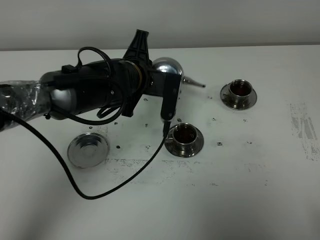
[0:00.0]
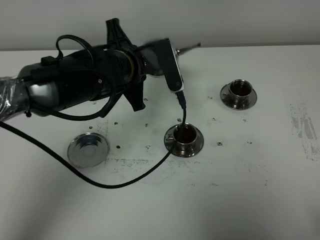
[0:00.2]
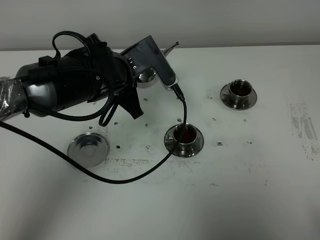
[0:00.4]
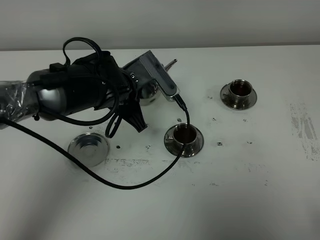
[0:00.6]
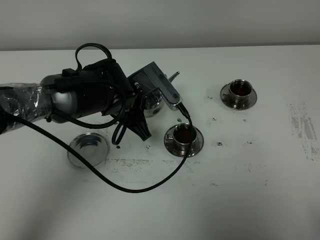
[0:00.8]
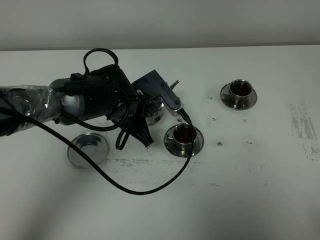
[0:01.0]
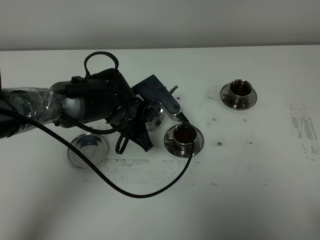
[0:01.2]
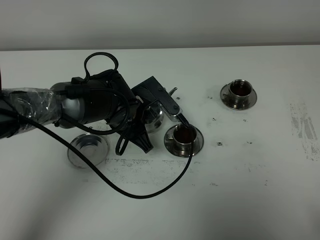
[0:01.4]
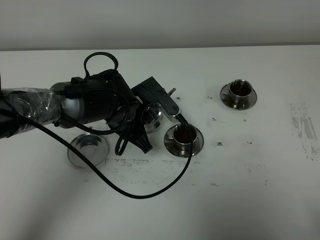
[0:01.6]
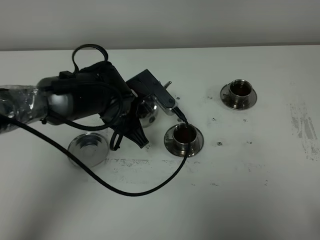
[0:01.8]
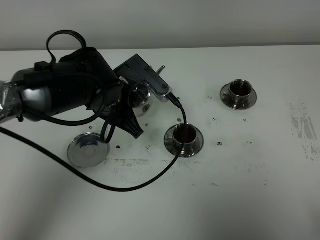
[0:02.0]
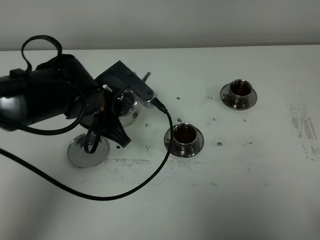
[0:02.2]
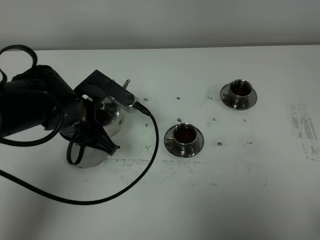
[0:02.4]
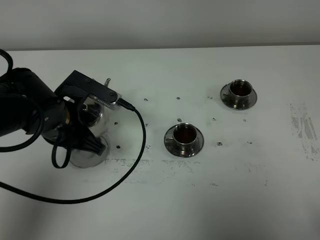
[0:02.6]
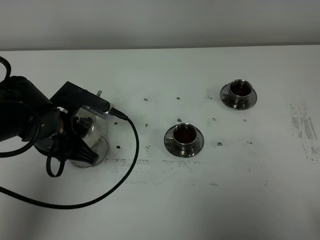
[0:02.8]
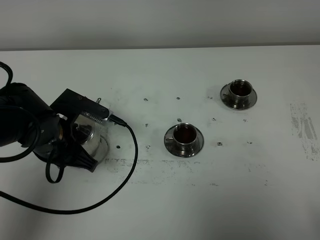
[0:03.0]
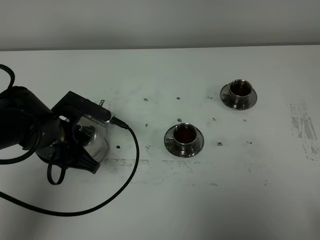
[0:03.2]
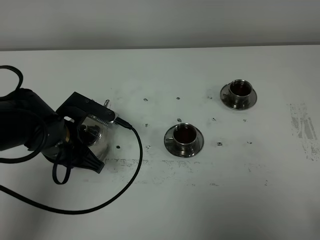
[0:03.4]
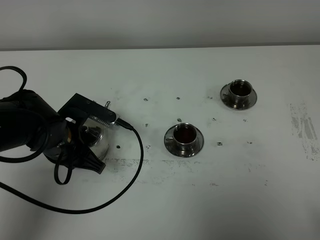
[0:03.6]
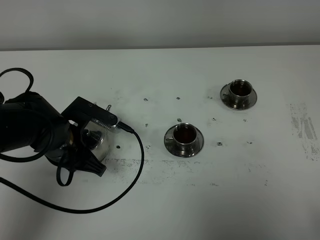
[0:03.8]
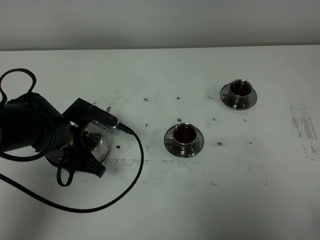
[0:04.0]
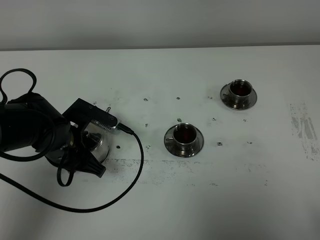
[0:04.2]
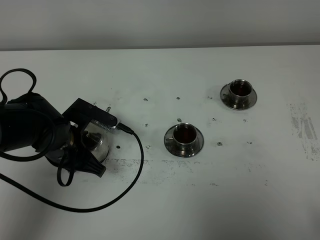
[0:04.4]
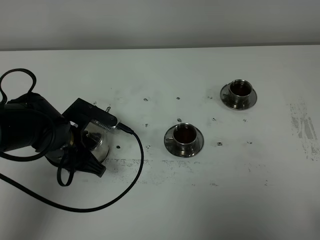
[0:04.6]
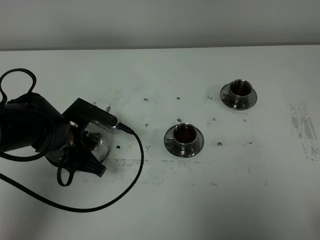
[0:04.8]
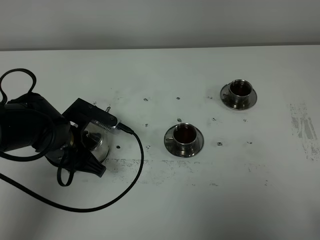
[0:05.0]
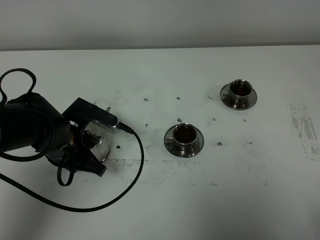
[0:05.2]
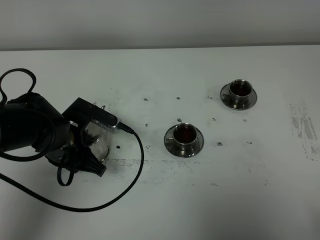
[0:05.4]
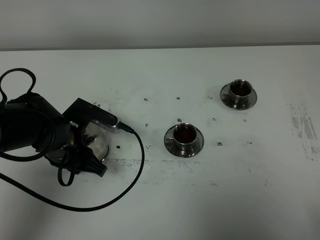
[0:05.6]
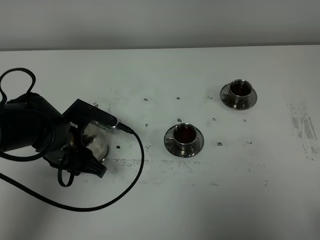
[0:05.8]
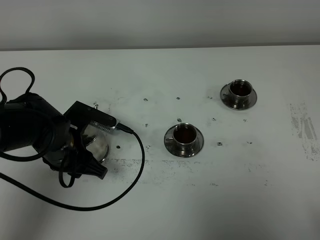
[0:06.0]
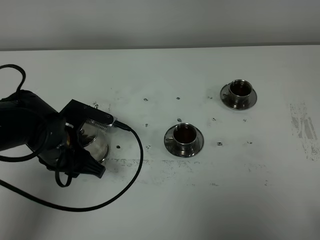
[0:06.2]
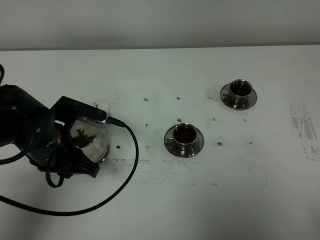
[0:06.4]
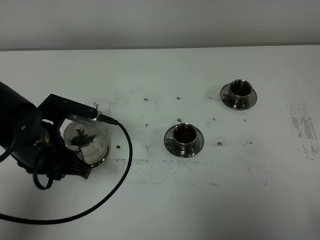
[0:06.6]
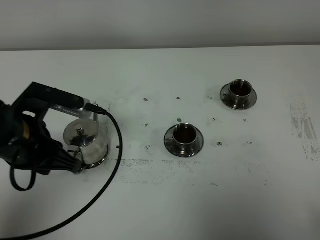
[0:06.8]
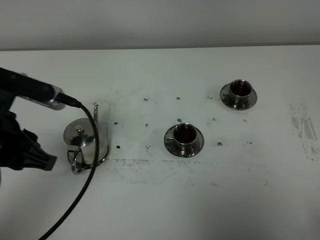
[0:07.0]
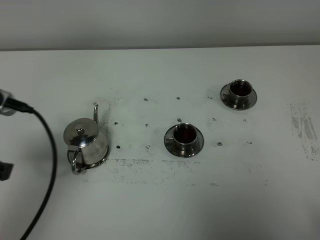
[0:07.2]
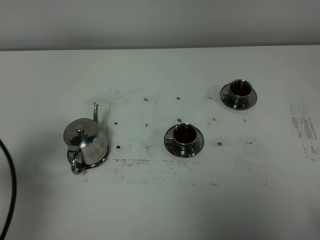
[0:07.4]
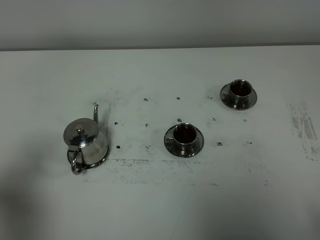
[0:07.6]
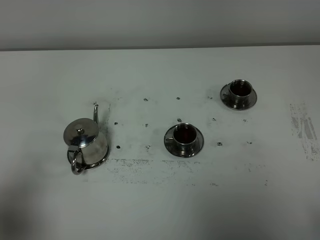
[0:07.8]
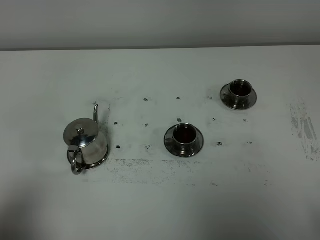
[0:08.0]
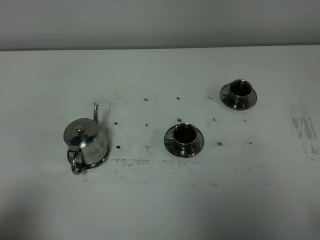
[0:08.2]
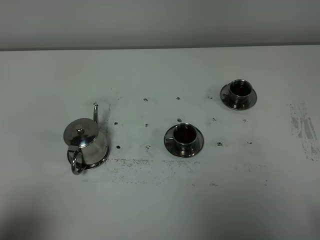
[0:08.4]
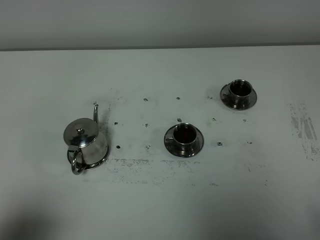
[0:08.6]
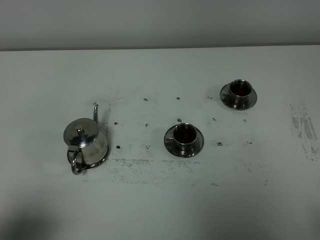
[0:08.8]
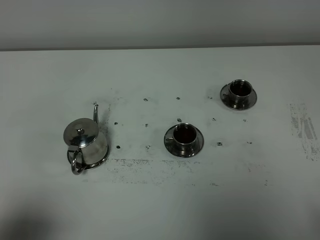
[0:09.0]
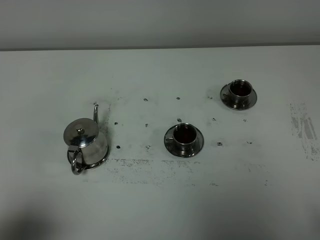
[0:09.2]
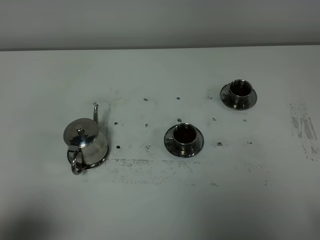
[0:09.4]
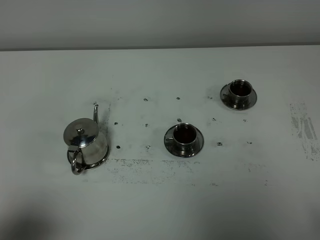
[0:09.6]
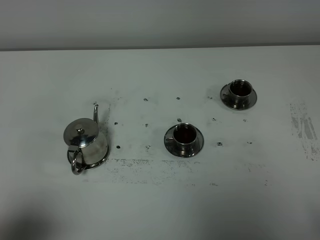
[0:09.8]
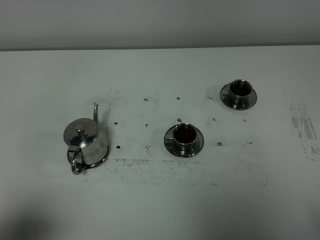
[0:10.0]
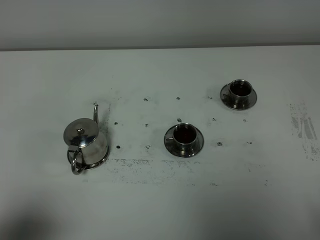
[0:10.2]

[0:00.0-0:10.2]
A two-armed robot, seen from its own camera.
Task of the whole recording: grasp the stainless steel teapot and pour the tea into the two stainless steel teacups one by one, put the stainless steel teapot back in its original place.
0:00.0 to 0:01.4: The left gripper travels downward by about 5 cm.
0:01.4 to 0:03.0: The left gripper heads to the left and backward, covering approximately 15 cm.
0:03.0 to 0:04.4: There are only small adjustments of the grippers.
0:04.4 to 0:05.8: Neither gripper changes place.
0:05.8 to 0:07.2: The left gripper goes roughly 20 cm upward, backward and to the left.
0:07.2 to 0:08.8: The left gripper travels backward by roughly 15 cm.

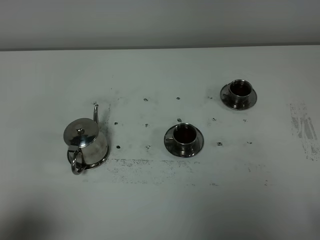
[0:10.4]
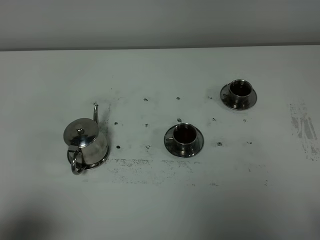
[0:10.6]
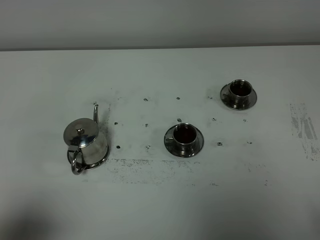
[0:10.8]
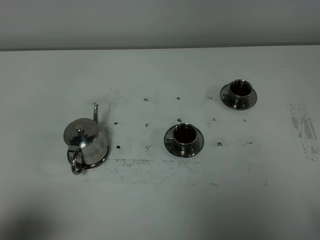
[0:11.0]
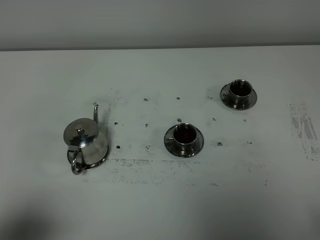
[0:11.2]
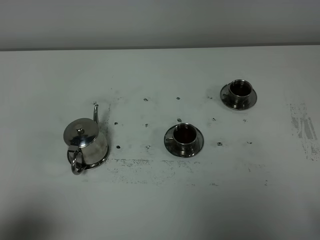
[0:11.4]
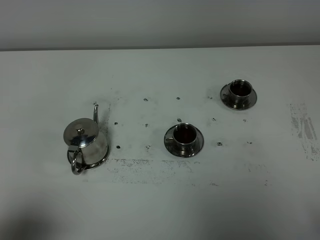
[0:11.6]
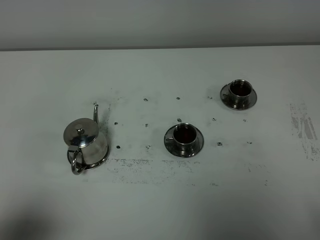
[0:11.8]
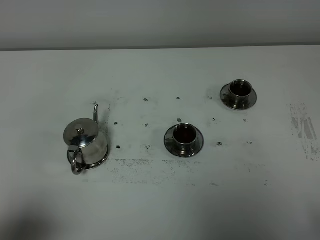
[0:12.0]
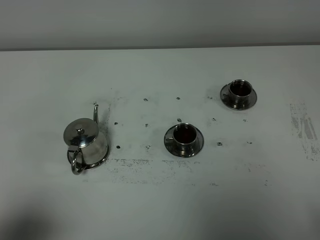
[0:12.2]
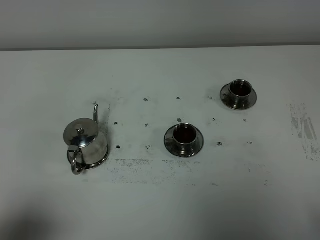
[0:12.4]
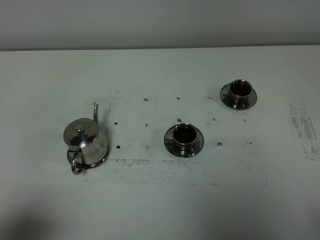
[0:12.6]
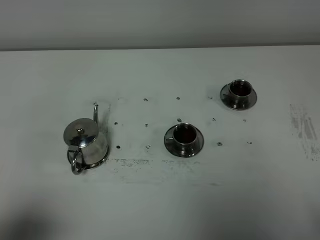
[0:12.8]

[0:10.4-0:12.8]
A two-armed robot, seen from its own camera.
Task of the whole recording: grasp the stainless steel teapot and pour the tea into the two stainless steel teacups one by one, put the stainless steel teapot back in its original place.
0:10.4 to 0:12.8: The two grippers keep their place.

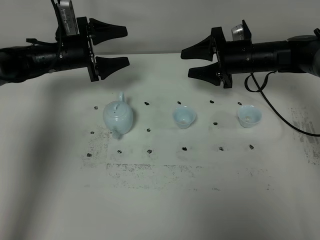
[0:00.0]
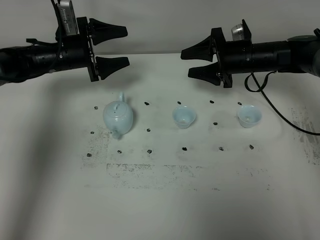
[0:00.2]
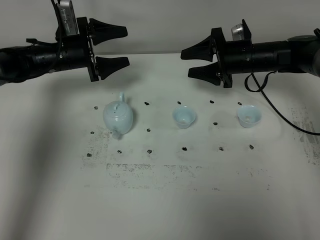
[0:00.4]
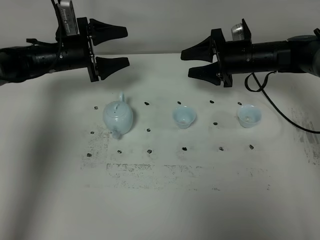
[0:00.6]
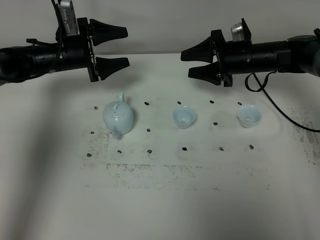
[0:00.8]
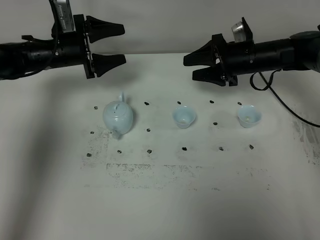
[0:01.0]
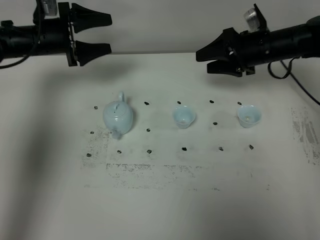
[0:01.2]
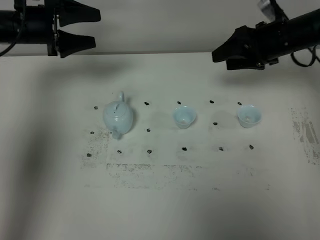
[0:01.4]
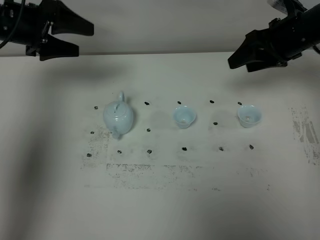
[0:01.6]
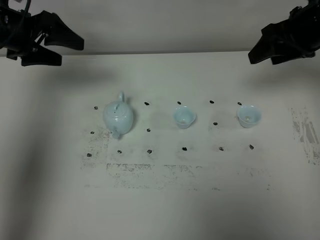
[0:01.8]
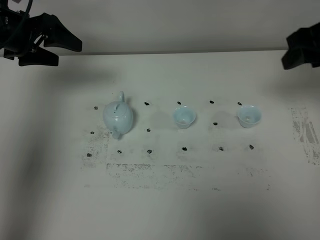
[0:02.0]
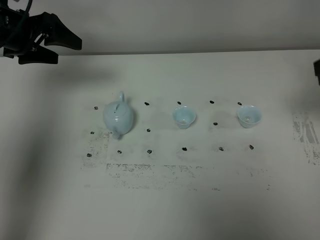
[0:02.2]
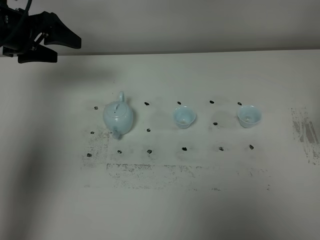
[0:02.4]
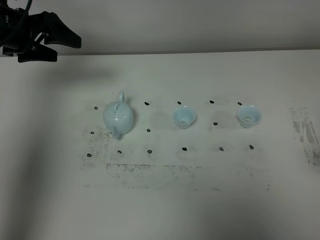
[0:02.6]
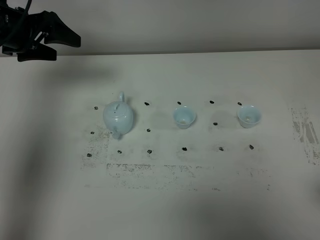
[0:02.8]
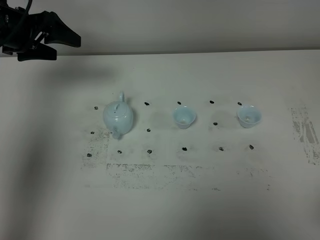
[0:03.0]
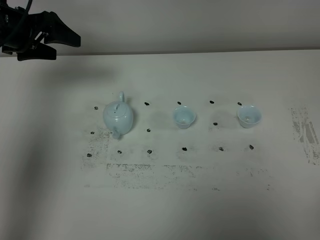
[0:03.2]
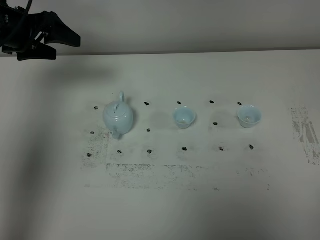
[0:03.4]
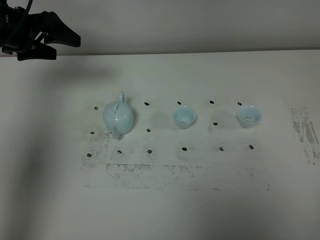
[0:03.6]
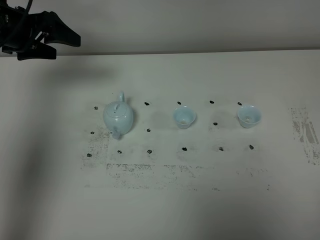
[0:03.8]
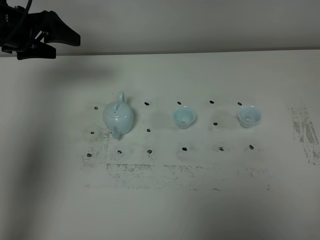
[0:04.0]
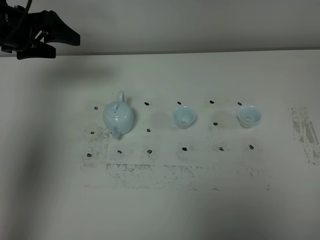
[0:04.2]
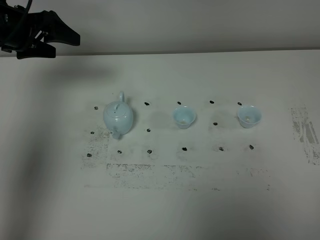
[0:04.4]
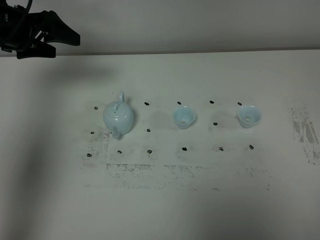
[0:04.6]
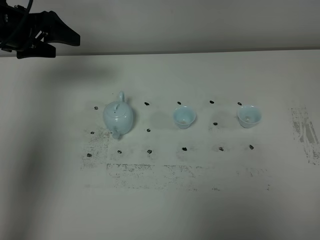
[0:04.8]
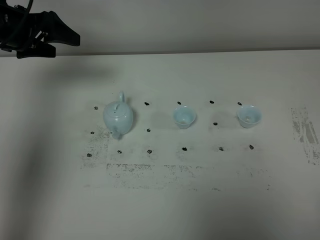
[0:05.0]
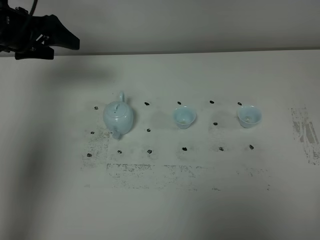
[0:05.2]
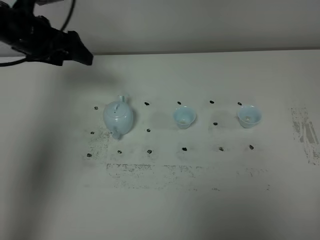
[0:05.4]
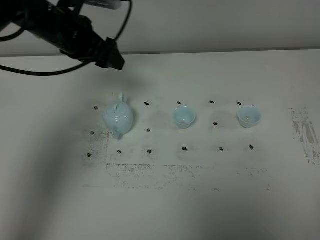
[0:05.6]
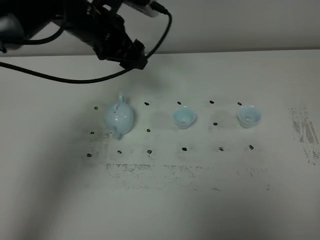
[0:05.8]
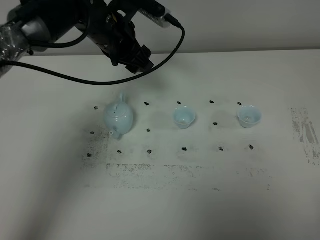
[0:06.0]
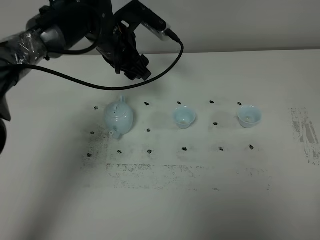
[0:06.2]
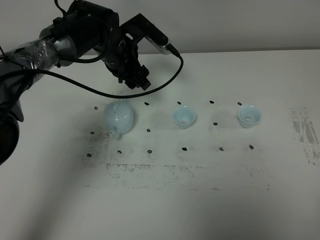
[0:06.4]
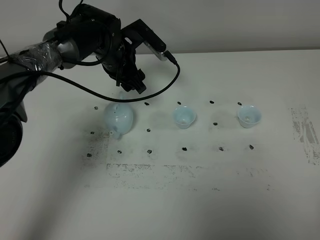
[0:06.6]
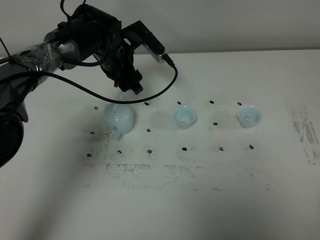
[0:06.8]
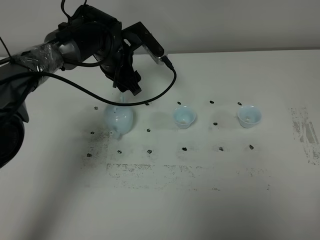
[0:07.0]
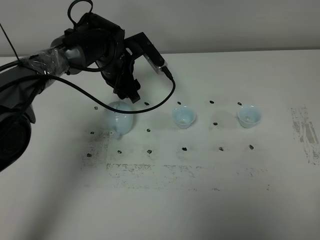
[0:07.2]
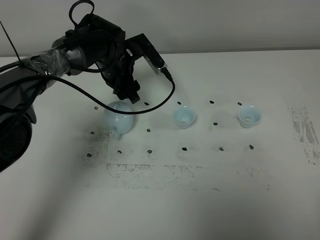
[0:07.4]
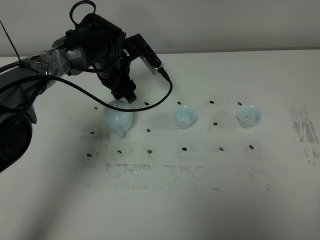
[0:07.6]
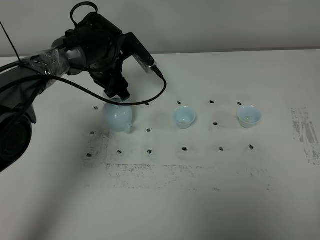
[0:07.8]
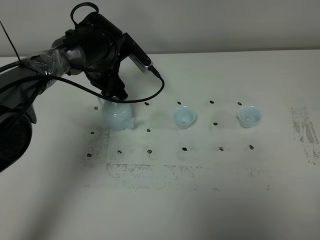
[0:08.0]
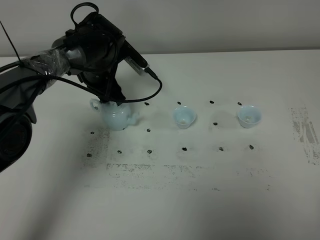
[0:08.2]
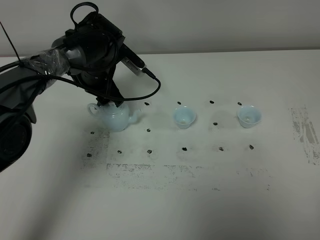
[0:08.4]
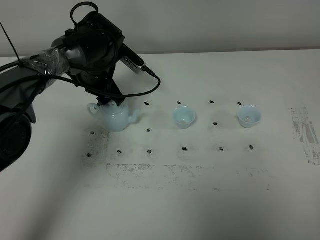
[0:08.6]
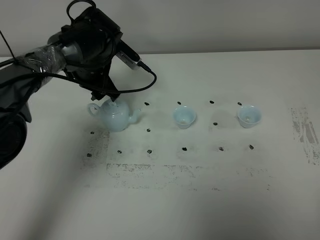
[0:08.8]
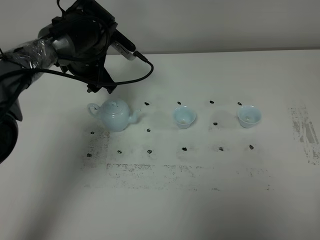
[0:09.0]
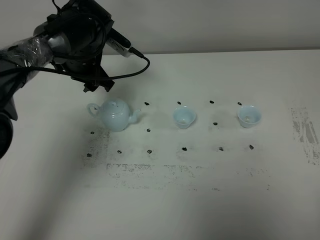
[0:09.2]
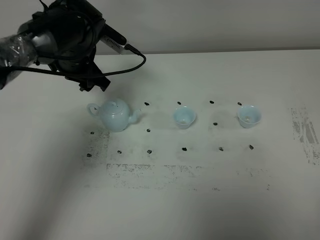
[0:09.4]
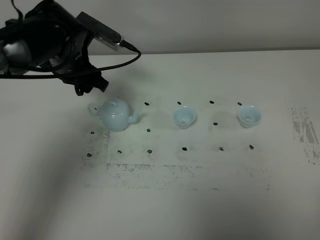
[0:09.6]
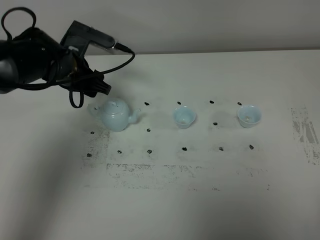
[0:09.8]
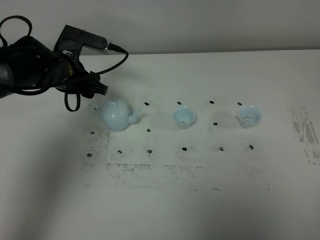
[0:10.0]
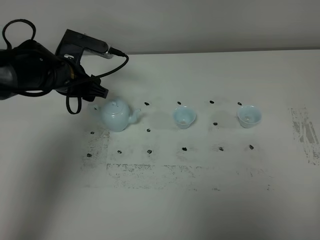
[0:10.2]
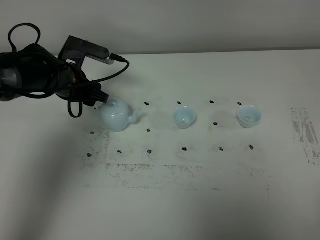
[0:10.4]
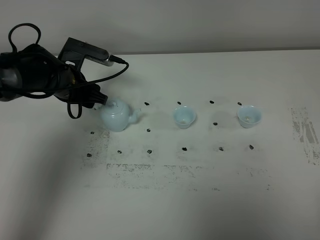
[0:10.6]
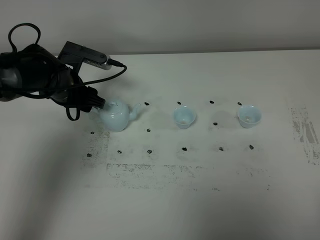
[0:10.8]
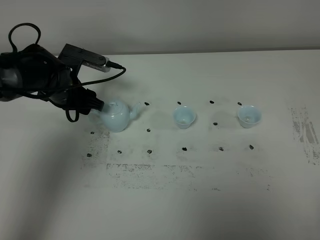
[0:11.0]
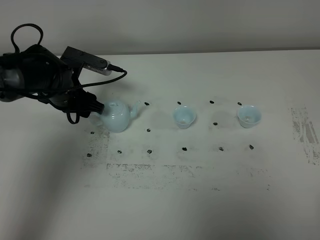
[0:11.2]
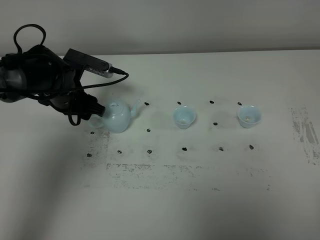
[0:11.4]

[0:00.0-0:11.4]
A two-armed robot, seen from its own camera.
Task of the whole recording: grasp the blue porcelain teapot and pour the tea into the two blue porcelain teacups one by one, put the blue porcelain teapot back in its original place.
0:00.0 to 0:01.4: The grippers both shift upward by about 10 cm.
0:01.4 to 0:02.8: The right gripper goes about 35 cm backward.
0:04.2 to 0:05.6: The left gripper is displaced to the right by roughly 15 cm.
0:05.6 to 0:07.2: The left gripper travels downward and to the right by roughly 15 cm.
0:08.6 to 0:10.0: The left gripper moves to the left, about 5 cm.
0:10.0 to 0:11.4: There are only small adjustments of the grippers.
